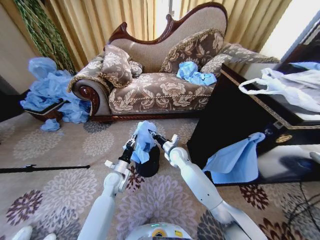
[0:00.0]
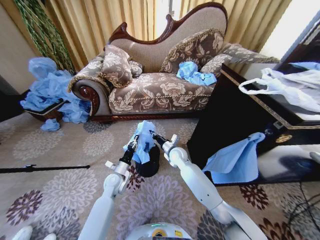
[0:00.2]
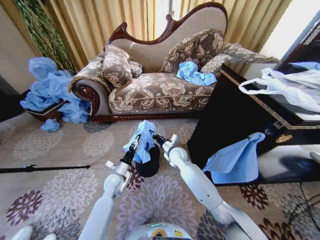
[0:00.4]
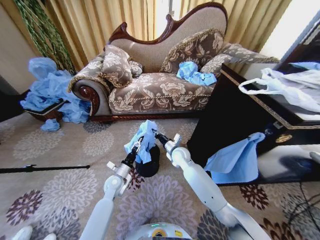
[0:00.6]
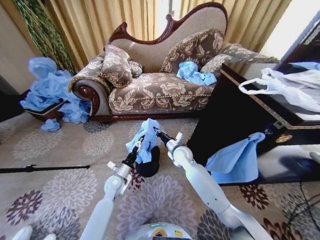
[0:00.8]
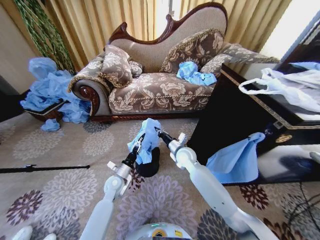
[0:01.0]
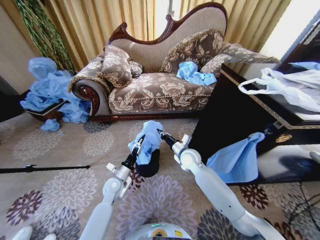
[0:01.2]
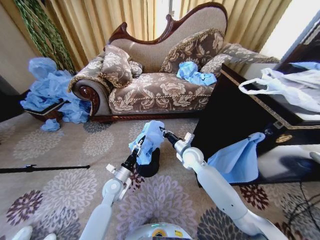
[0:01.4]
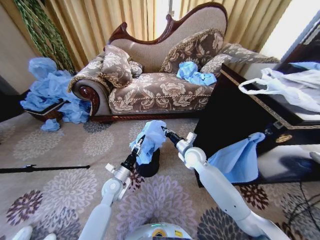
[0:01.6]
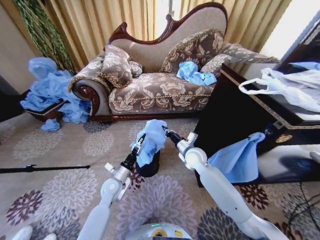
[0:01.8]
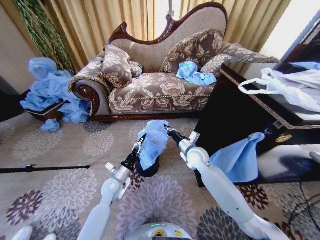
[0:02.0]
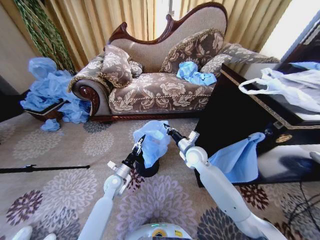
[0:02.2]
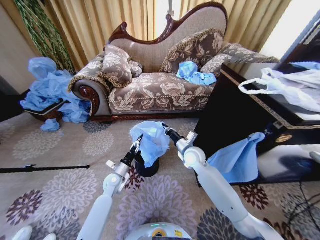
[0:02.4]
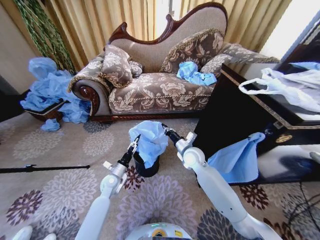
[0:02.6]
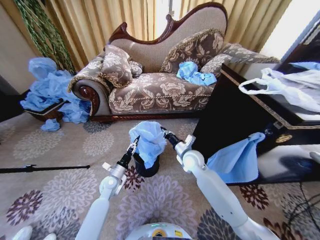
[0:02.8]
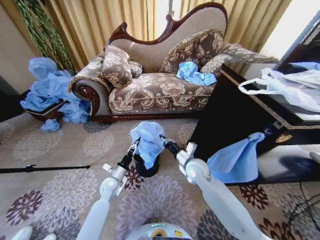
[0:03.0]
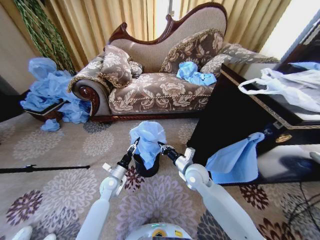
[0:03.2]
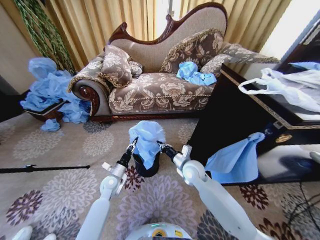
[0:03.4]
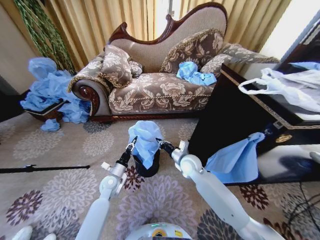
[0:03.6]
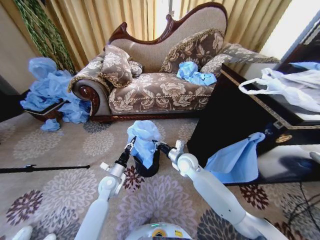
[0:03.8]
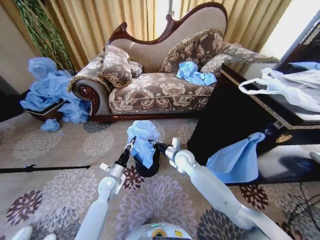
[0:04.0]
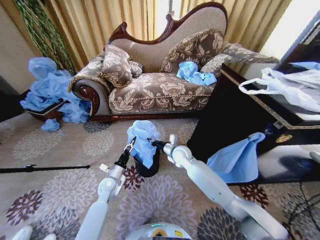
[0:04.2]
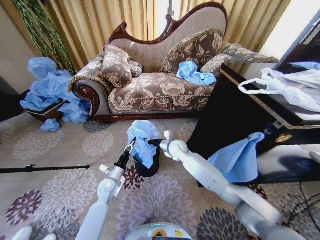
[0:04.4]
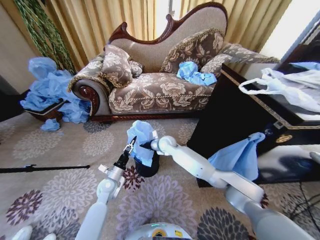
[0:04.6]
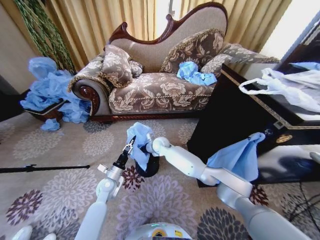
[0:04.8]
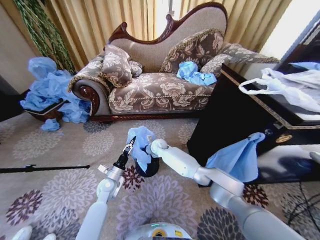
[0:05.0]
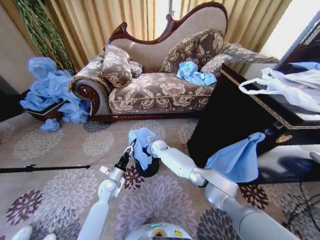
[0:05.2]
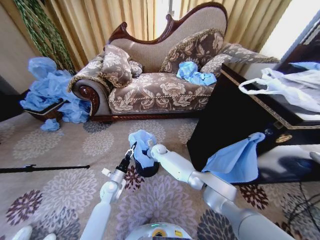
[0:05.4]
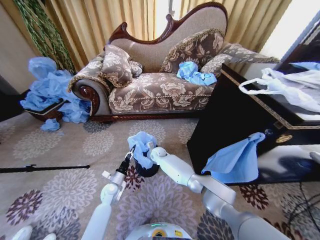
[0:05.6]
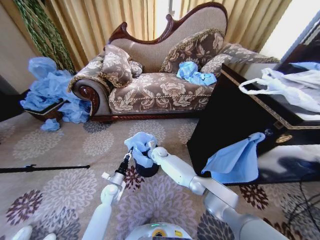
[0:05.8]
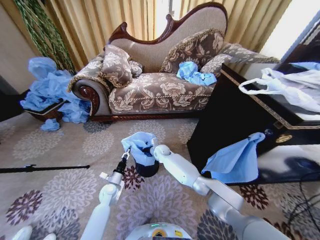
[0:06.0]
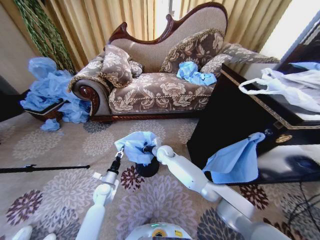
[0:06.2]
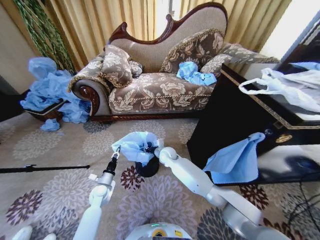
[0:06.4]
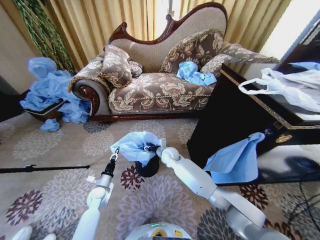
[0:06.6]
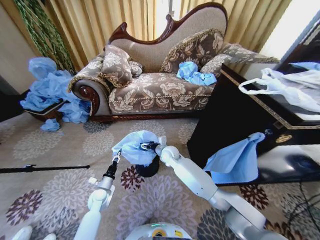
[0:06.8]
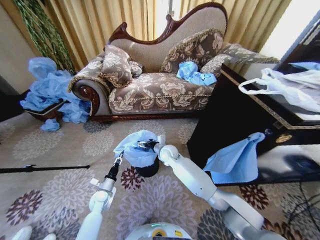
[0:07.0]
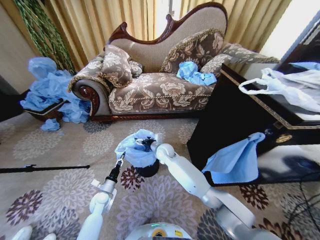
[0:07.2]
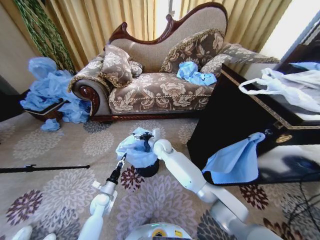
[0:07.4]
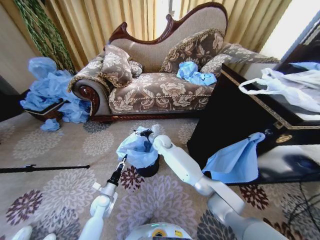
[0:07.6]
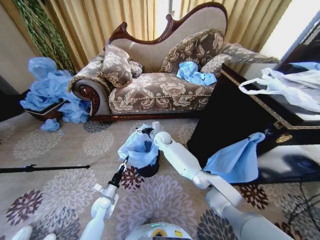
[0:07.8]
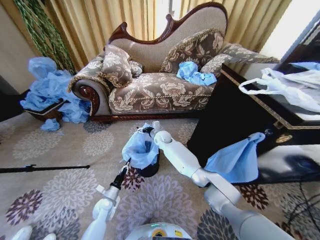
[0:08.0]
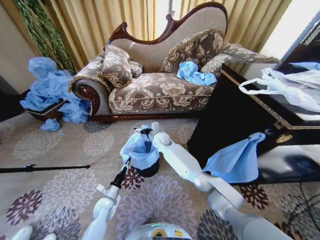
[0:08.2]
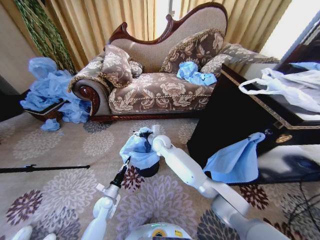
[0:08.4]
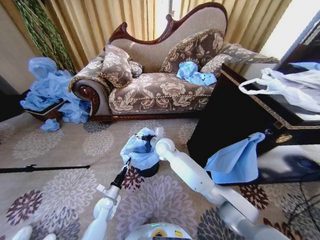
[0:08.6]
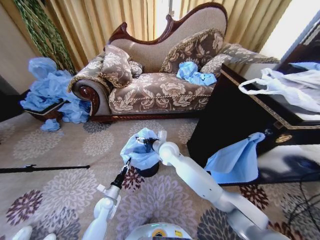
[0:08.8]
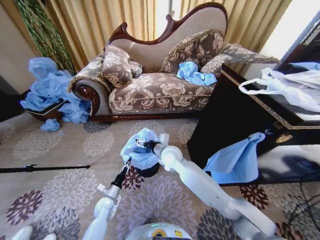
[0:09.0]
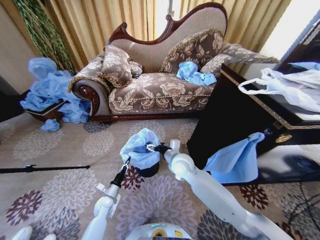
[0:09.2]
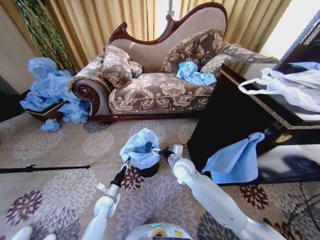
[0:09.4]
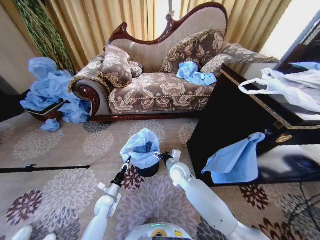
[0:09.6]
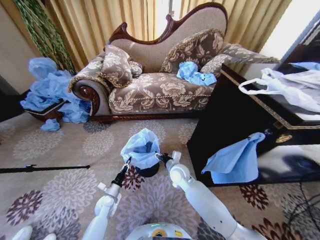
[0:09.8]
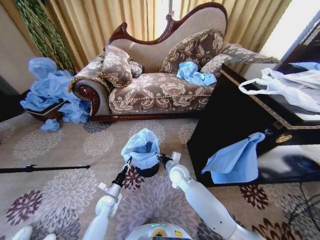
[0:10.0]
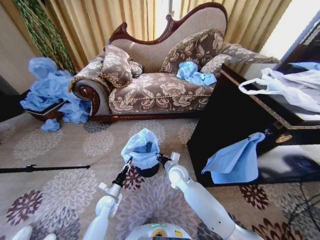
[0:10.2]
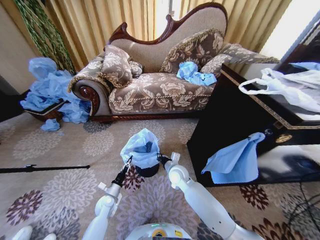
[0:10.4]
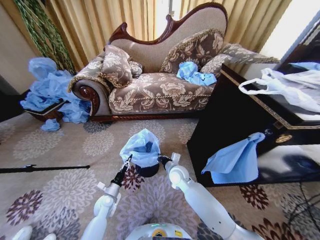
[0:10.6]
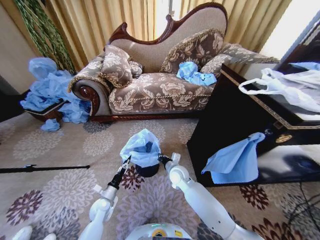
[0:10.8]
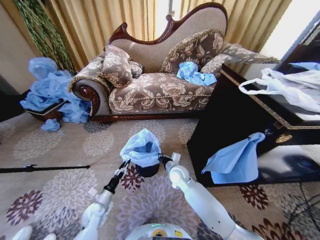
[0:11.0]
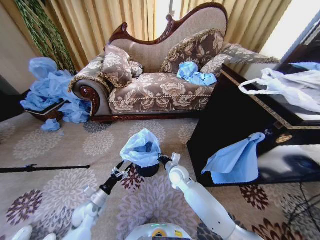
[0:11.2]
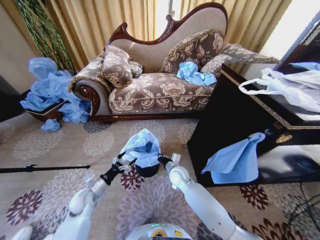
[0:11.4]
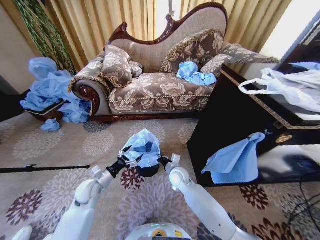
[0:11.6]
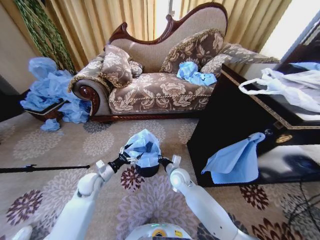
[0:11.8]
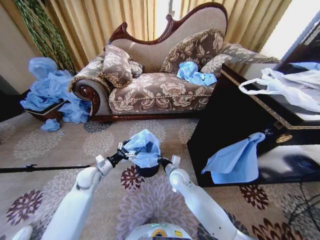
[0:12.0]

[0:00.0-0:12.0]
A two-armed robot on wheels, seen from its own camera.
Task of the whole recording: Place a garbage bag over the trash bin.
0:00.0 to 0:01.6: The right gripper moves to the right and upward, about 10 cm, while the left gripper opens its fingers.
0:01.6 to 0:03.0: The right gripper heads backward, covering approximately 5 cm. The left gripper closes.
0:03.0 to 0:04.4: The right gripper travels forward and to the left by roughly 15 cm.
0:04.4 to 0:06.0: The right gripper shifts some 10 cm downward and to the left; the left gripper heads downward, covering some 5 cm.
0:06.0 to 0:07.6: The left gripper ends up roughly 5 cm from where it was. Meanwhile the right gripper heads upward, covering some 10 cm, and opens up.
0:07.6 to 0:09.0: The right gripper is displaced backward by some 15 cm.
0:09.0 to 0:10.4: The right gripper is displaced downward by about 10 cm, and closes its fingers.
0:10.4 to 0:12.0: The left gripper shifts about 20 cm upward and forward, and opens its fingers.

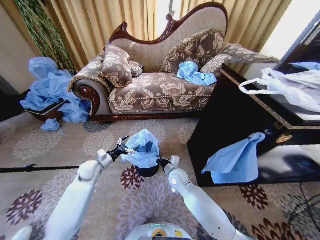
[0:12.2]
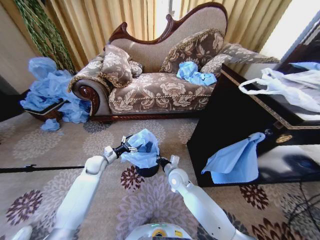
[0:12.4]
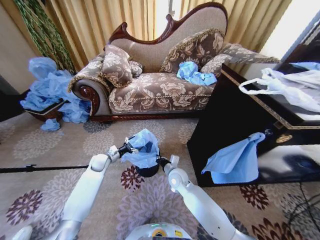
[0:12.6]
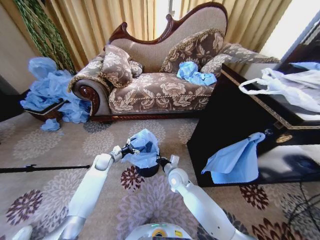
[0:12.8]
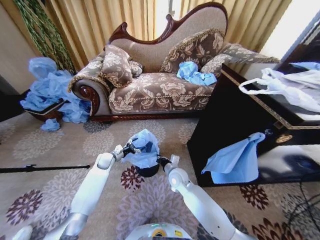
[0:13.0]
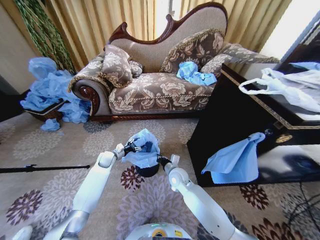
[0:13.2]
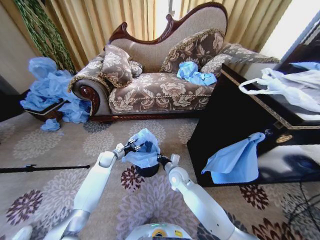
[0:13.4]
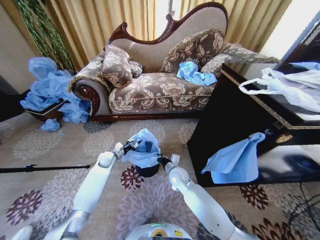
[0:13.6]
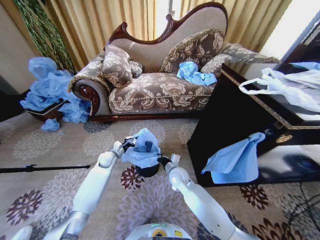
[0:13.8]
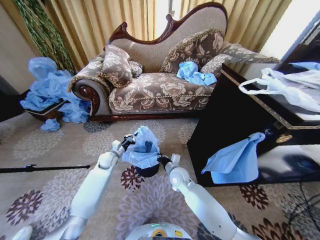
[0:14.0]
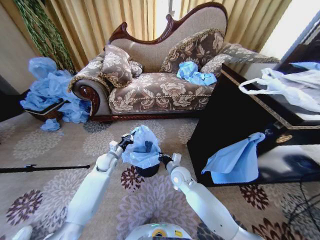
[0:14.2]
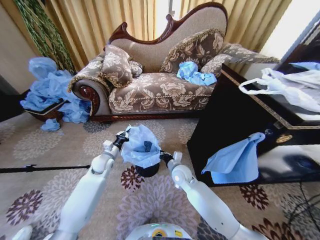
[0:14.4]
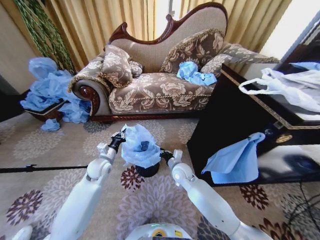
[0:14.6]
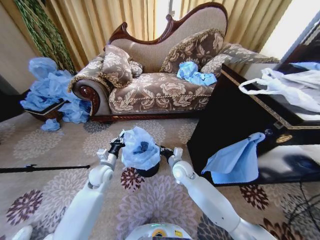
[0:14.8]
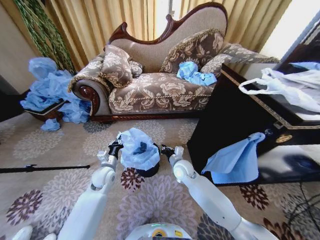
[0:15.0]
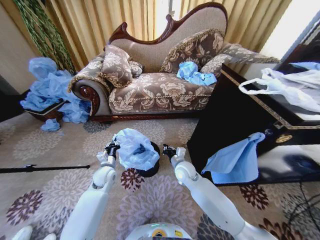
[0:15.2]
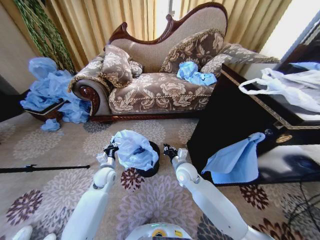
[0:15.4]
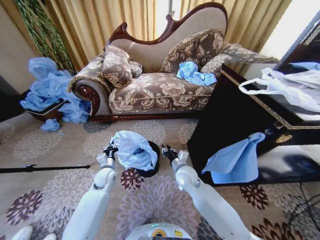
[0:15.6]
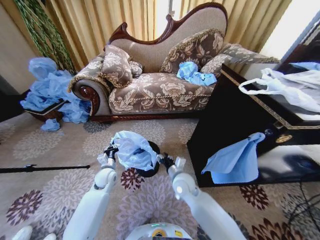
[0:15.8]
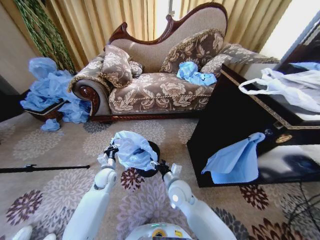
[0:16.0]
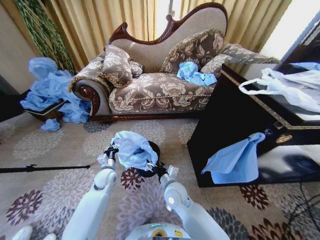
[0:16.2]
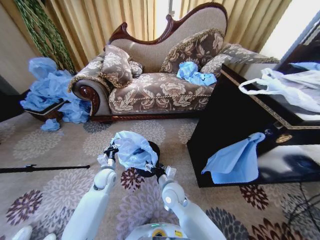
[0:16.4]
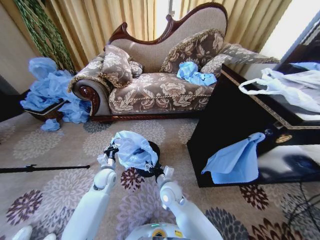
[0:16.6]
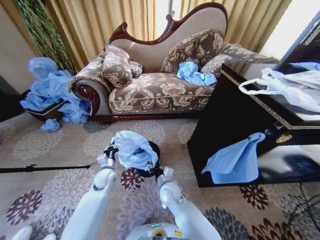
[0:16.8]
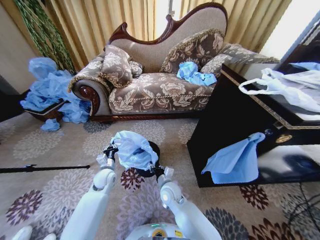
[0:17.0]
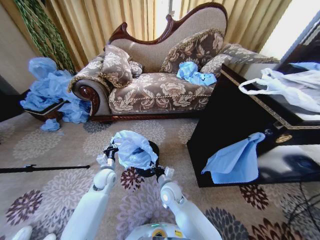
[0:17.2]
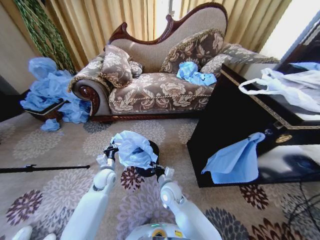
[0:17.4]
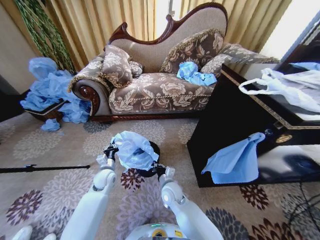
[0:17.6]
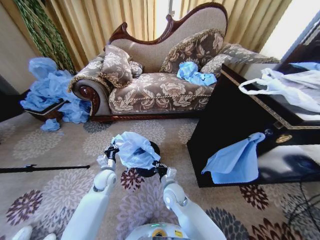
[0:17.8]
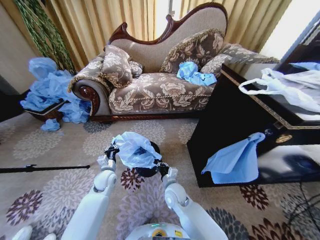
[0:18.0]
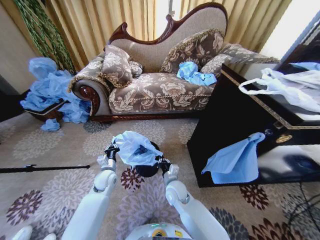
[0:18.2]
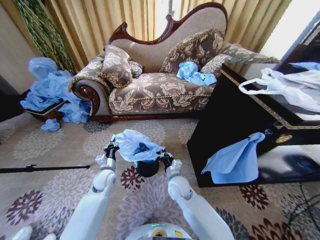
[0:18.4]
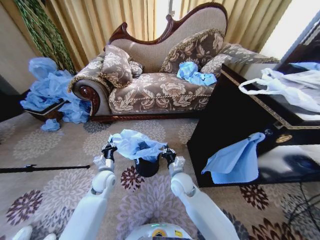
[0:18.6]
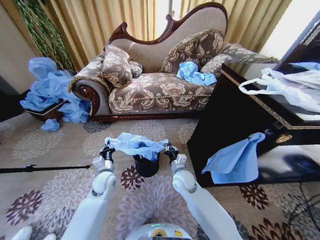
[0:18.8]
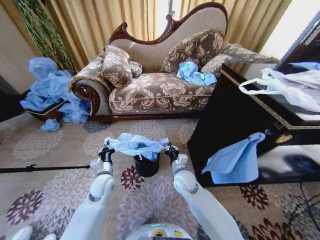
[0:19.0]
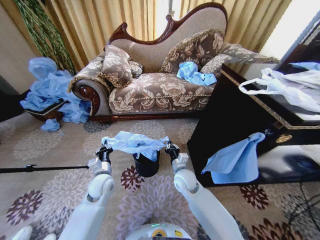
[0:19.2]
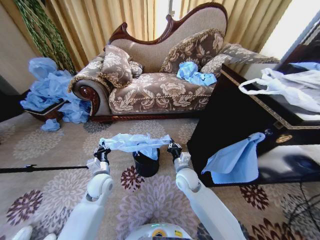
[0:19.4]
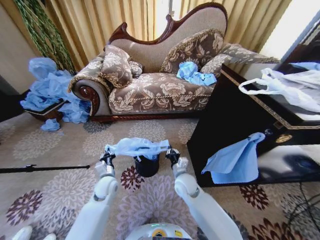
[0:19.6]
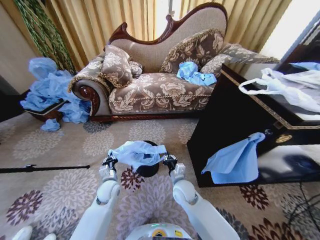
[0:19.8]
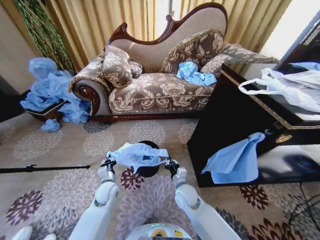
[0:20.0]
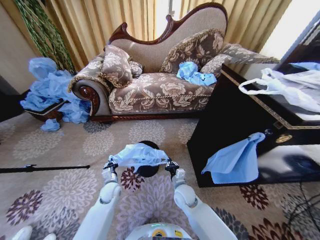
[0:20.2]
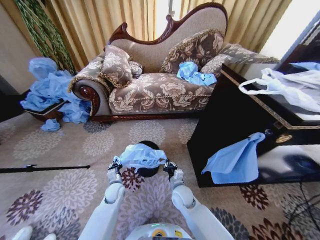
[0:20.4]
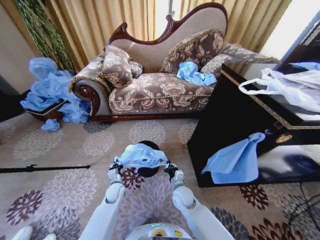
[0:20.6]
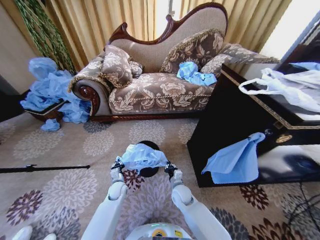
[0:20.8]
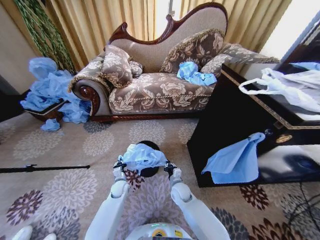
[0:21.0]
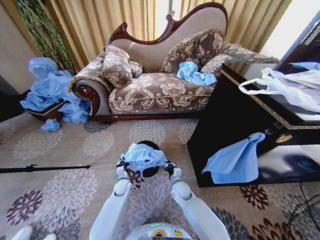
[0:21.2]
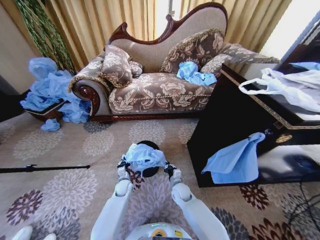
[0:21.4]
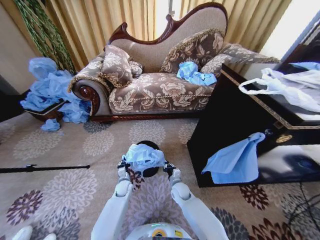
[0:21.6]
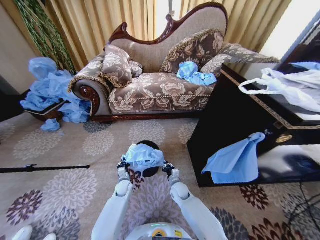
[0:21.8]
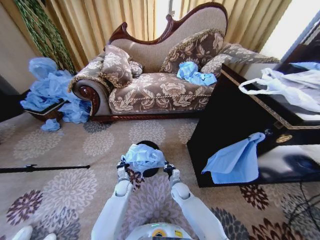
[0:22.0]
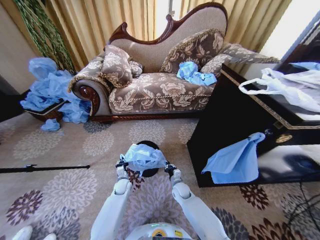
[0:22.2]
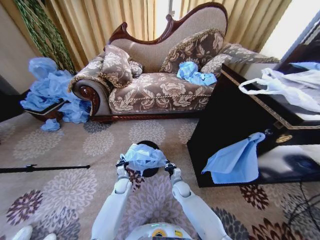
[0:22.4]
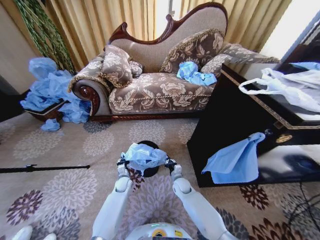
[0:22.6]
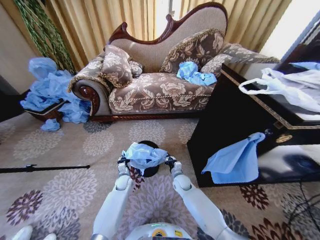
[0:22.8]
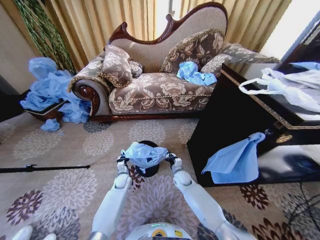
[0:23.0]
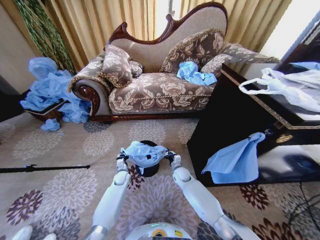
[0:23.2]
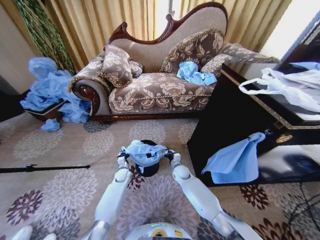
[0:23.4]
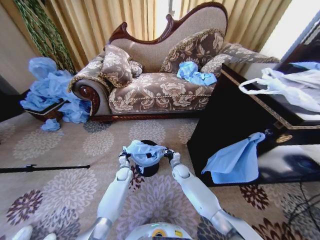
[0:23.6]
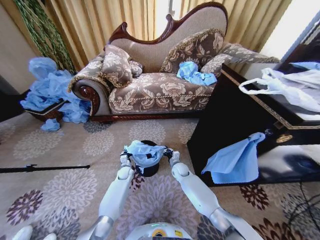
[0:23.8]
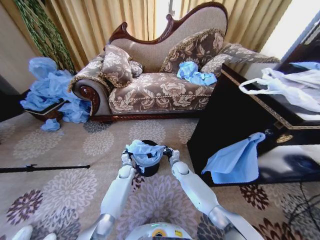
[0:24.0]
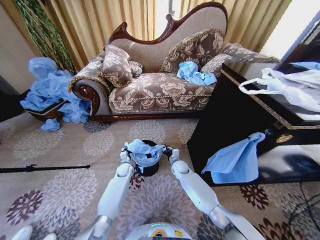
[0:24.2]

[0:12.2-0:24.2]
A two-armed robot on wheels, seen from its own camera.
Task of the whole recording: Place a garbage bag over the trash bin.
0:12.2 to 0:13.8: The left gripper travels forward by about 10 cm, and closes.
0:13.8 to 0:15.2: The left gripper is displaced backward by approximately 10 cm.
0:15.2 to 0:16.6: The right gripper shifts about 10 cm backward and to the left, and opens.
0:16.6 to 0:18.2: The right gripper closes up.
0:18.2 to 0:19.8: The left gripper ends up about 5 cm from where it was.
0:19.8 to 0:21.2: The right gripper travels downward by roughly 10 cm; the left gripper moves downward and forward, some 10 cm.
0:21.2 to 0:22.6: The grippers make only small movements.
0:22.6 to 0:24.2: The left gripper travels forward by about 5 cm, while the right gripper shifts approximately 10 cm forward and upward.
